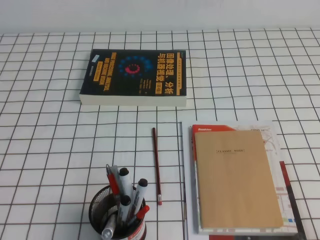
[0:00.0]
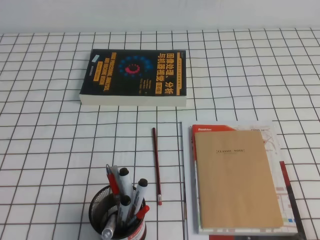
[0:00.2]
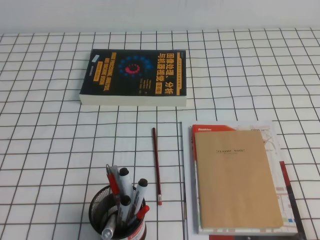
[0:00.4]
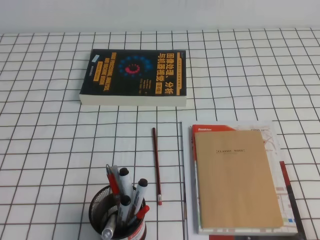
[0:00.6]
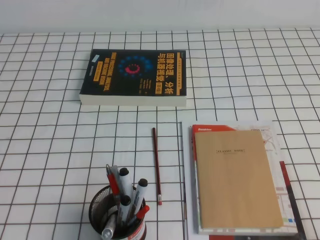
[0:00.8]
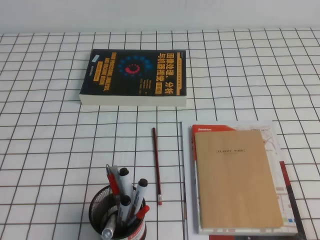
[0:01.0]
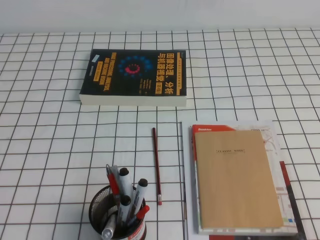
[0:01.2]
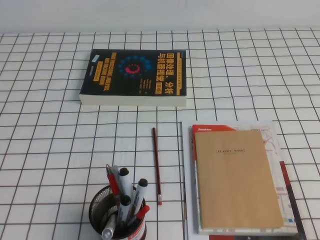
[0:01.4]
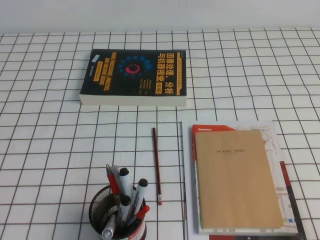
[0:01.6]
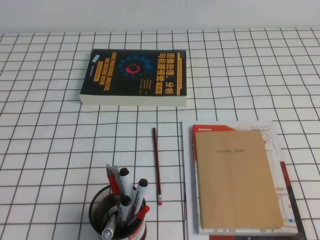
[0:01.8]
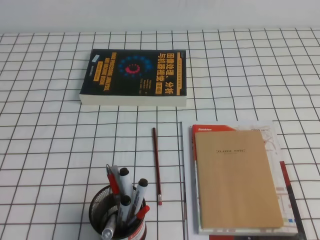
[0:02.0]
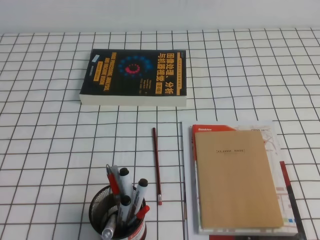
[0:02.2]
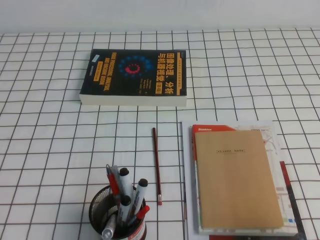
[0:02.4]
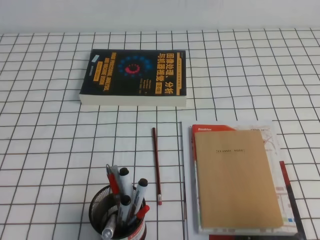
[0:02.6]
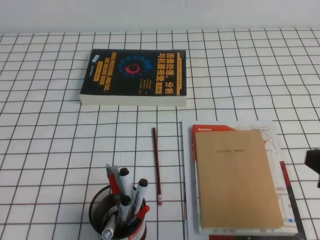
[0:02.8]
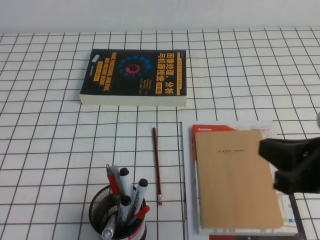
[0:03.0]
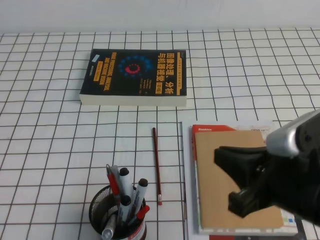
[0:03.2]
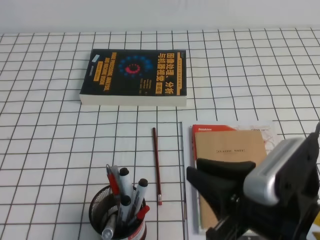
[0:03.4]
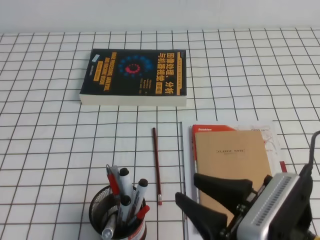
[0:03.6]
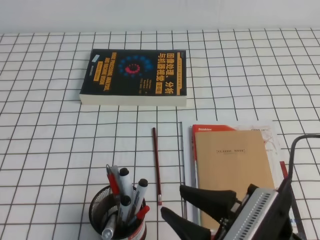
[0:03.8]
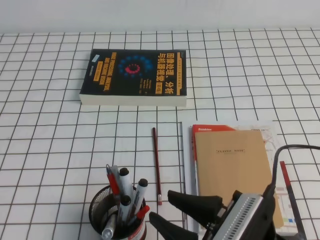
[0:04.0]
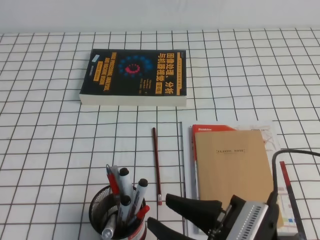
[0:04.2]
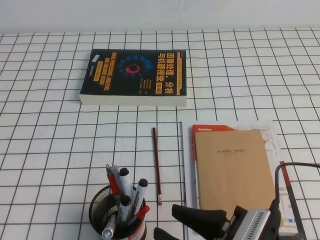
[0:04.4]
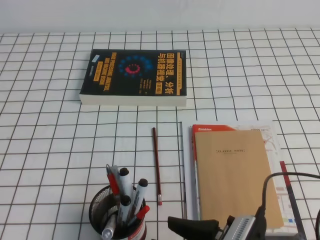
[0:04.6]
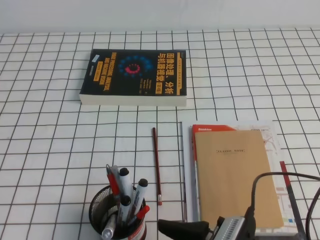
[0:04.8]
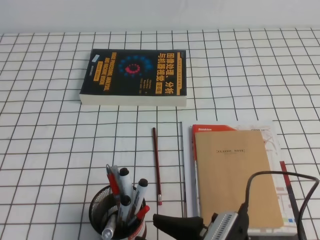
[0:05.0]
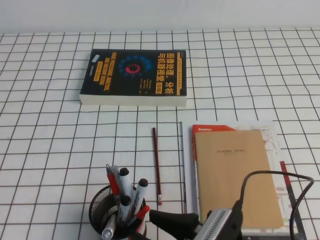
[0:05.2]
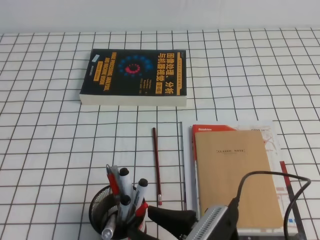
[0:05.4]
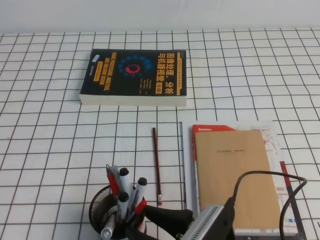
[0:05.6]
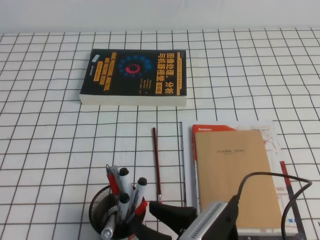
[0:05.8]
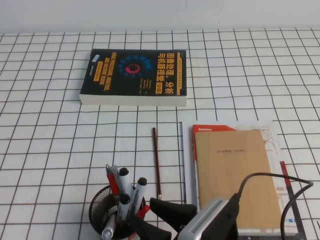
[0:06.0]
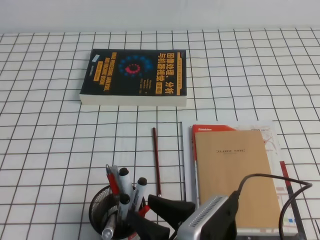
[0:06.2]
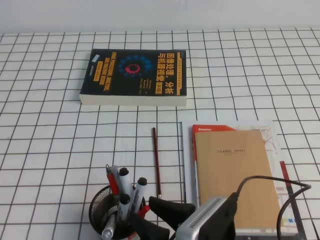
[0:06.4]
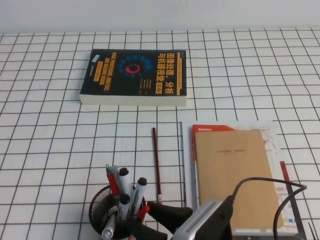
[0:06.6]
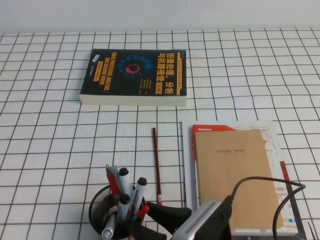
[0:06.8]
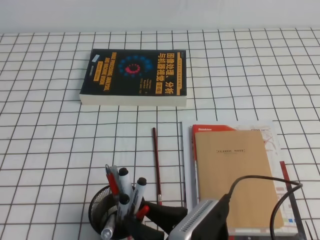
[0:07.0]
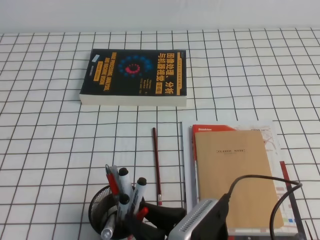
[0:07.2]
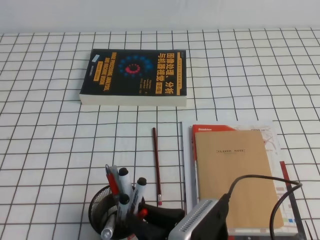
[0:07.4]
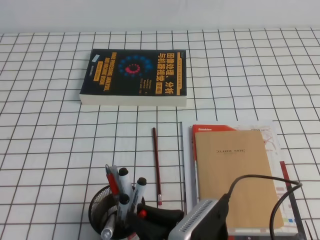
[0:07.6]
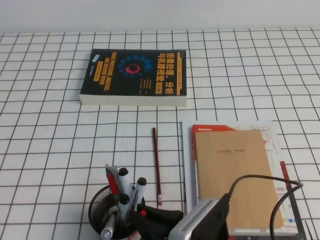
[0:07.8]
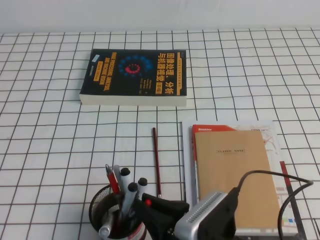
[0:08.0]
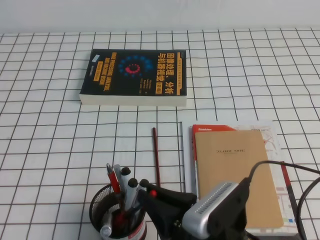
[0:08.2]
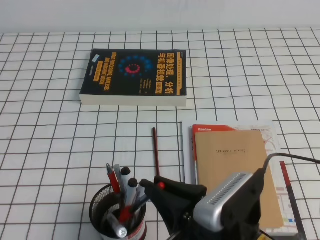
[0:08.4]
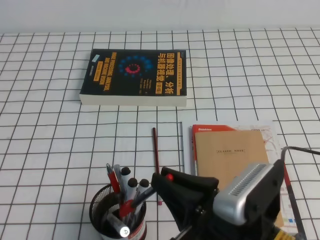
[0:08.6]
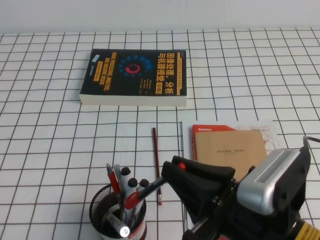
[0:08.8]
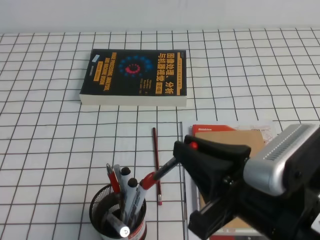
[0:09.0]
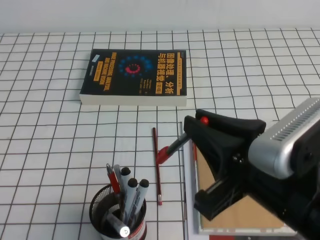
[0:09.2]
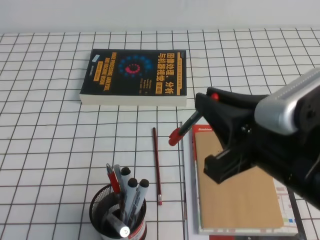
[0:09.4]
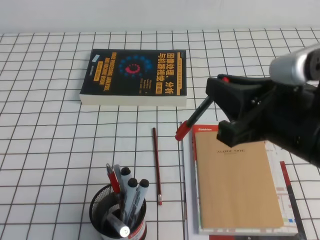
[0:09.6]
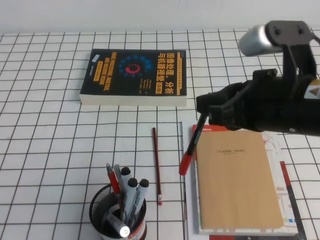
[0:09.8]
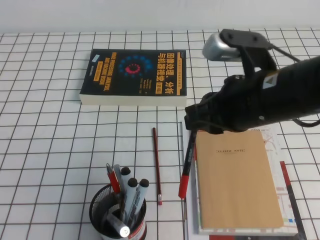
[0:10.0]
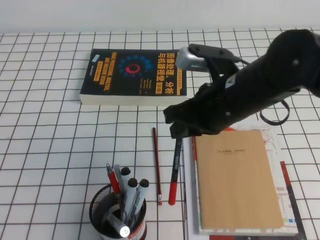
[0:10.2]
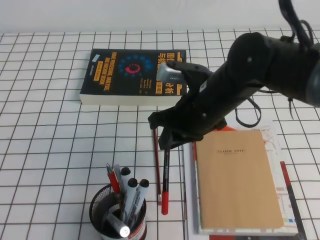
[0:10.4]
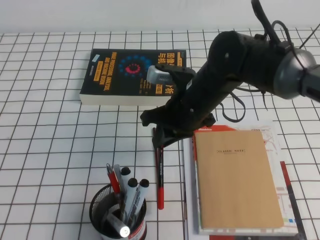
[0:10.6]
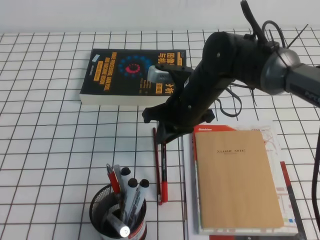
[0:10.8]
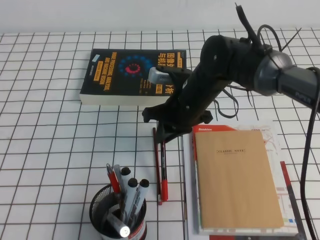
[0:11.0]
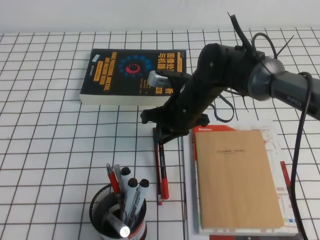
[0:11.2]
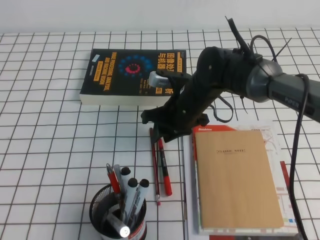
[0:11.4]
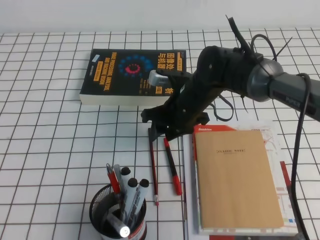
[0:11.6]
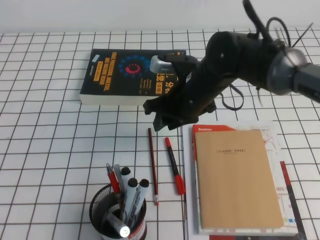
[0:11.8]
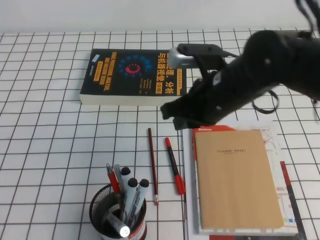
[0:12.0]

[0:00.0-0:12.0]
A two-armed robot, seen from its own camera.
0:01.6 to 0:03.0: The right gripper shifts roughly 15 cm forward, to the left and upward.
0:03.0 to 0:04.4: The right gripper shifts approximately 15 cm to the left, downward and backward, and opens up.
0:04.4 to 0:06.0: The grippers make only small movements.
0:06.0 to 0:07.6: The right gripper closes its fingers.
0:07.6 to 0:09.0: The right gripper goes approximately 15 cm upward and to the right.
0:09.0 to 0:10.4: The right gripper shifts approximately 20 cm forward.
0:10.4 to 0:12.0: The right gripper travels downward and back again, approximately 10 cm each way, and opens and closes again.

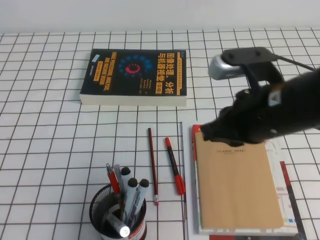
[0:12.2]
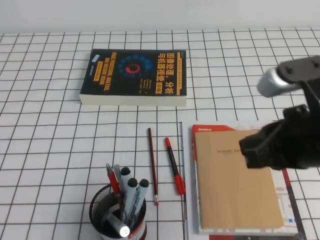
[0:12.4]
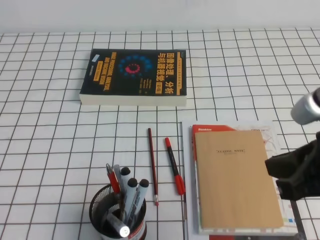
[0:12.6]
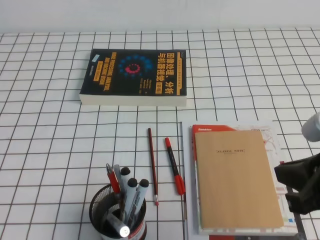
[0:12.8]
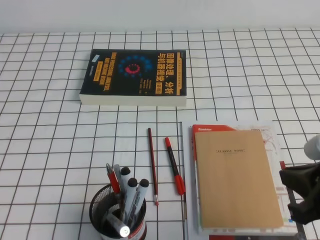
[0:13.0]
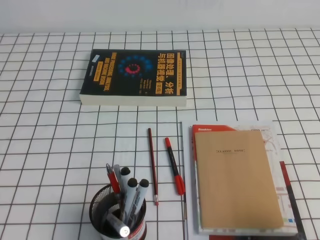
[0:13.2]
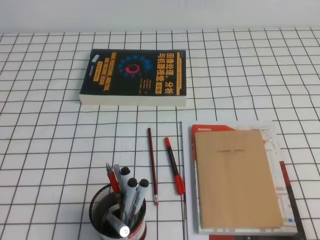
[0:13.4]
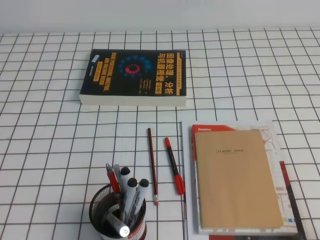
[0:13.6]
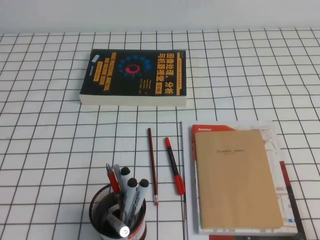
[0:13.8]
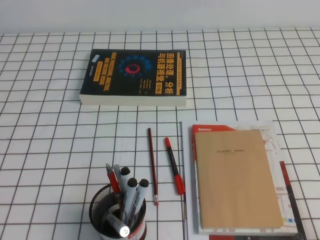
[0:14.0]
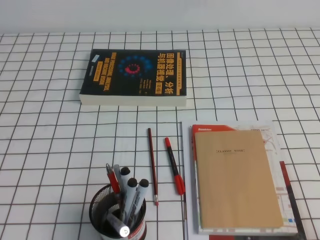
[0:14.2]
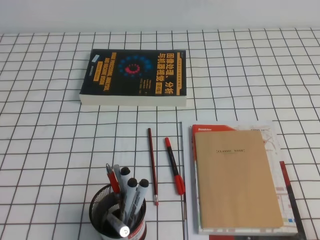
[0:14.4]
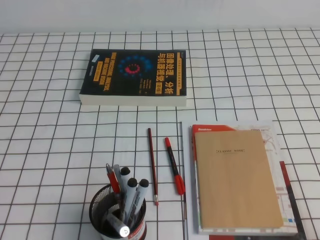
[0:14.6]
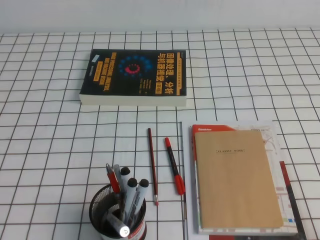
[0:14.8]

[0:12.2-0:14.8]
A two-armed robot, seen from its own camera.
Step, 0:12.2 to 0:14.8: Pick up the pen from the pen holder.
0:12.2 to 0:13.4: The right gripper moves to the right, backward and downward, some 25 cm.

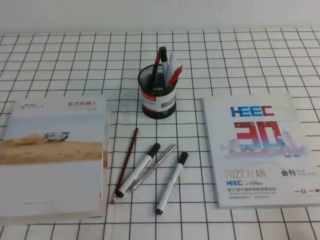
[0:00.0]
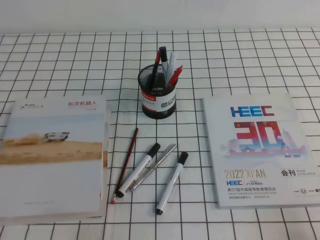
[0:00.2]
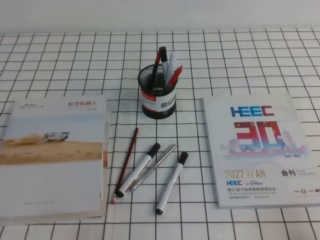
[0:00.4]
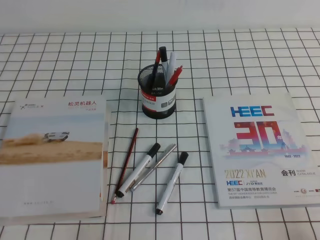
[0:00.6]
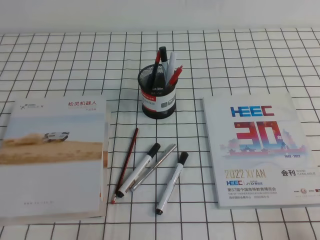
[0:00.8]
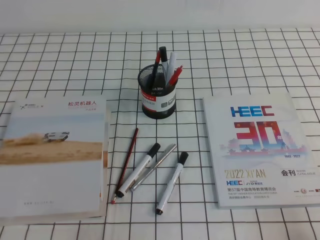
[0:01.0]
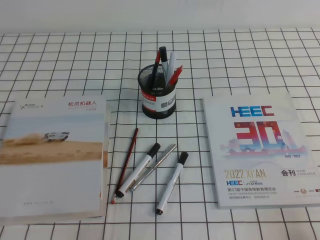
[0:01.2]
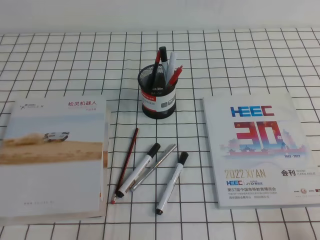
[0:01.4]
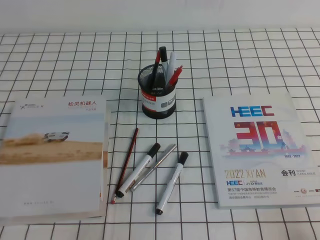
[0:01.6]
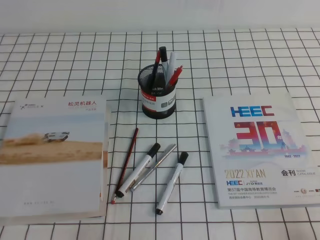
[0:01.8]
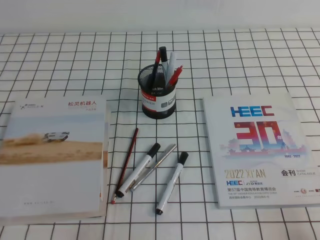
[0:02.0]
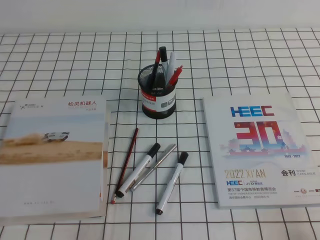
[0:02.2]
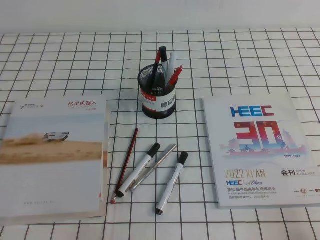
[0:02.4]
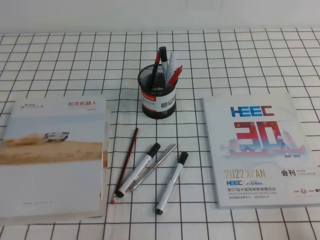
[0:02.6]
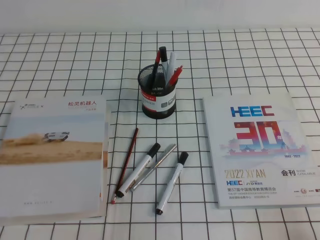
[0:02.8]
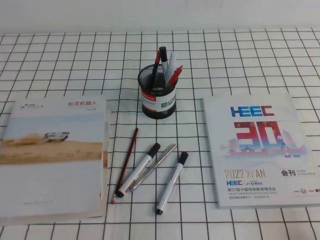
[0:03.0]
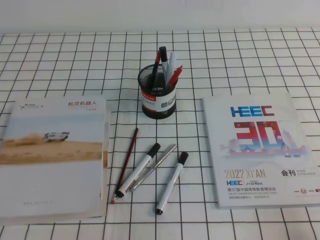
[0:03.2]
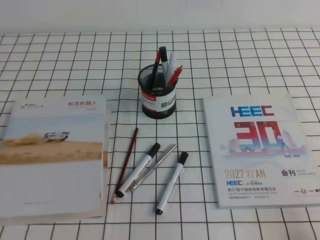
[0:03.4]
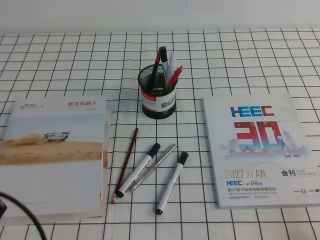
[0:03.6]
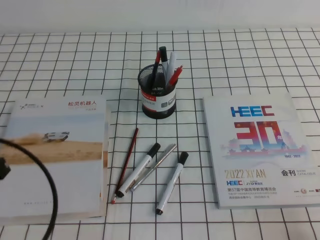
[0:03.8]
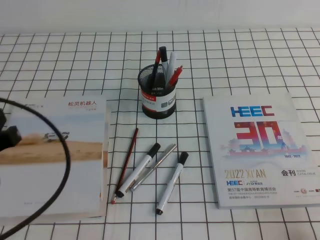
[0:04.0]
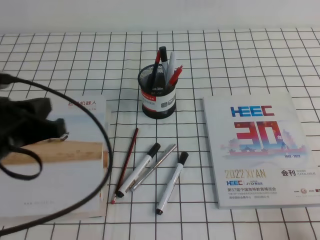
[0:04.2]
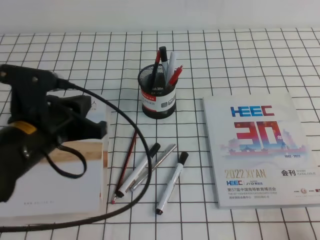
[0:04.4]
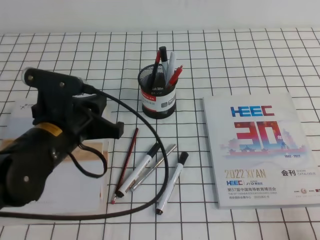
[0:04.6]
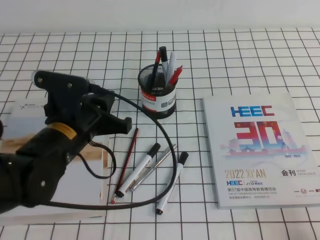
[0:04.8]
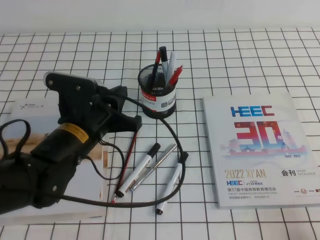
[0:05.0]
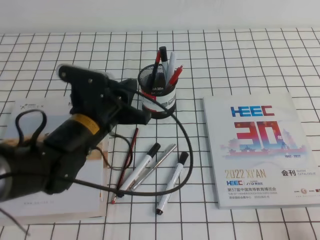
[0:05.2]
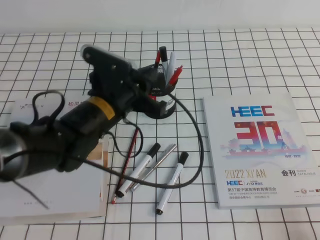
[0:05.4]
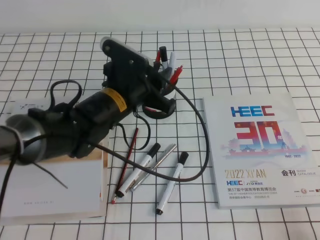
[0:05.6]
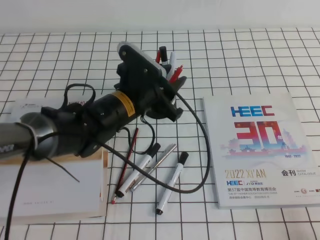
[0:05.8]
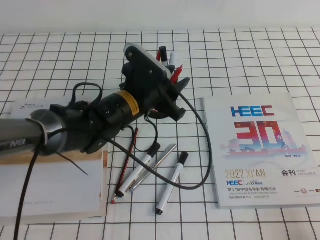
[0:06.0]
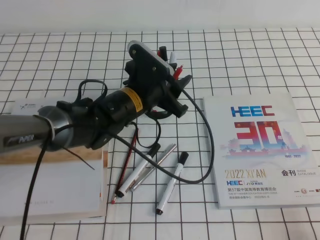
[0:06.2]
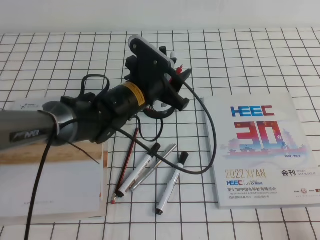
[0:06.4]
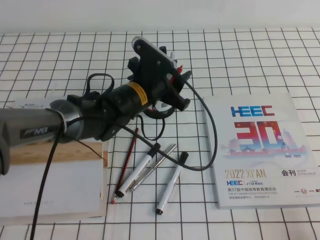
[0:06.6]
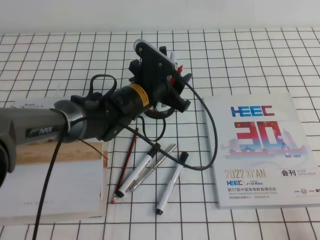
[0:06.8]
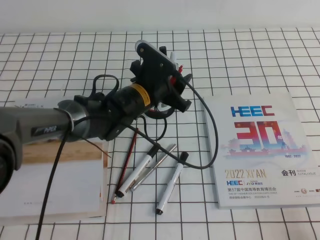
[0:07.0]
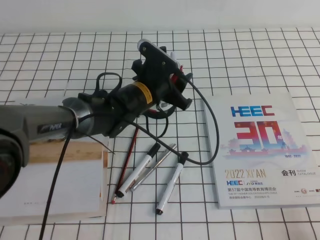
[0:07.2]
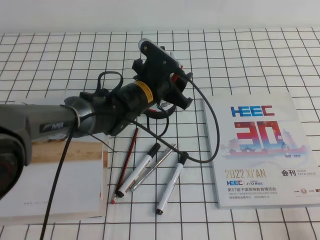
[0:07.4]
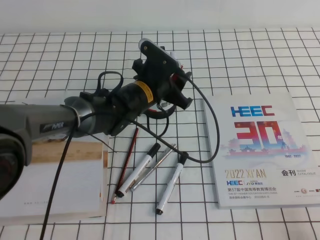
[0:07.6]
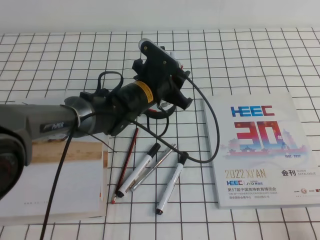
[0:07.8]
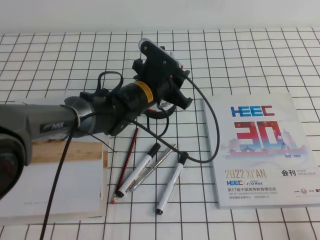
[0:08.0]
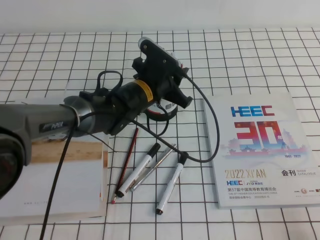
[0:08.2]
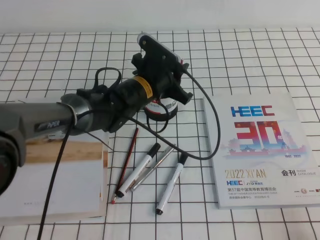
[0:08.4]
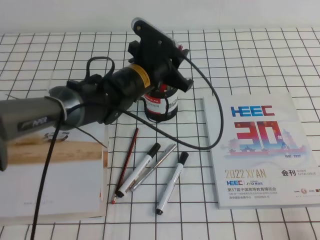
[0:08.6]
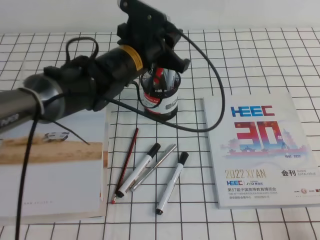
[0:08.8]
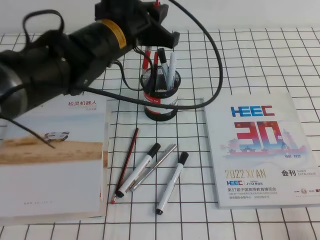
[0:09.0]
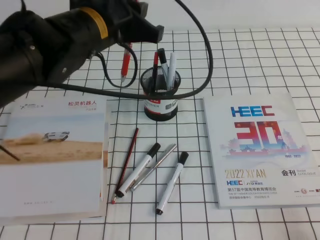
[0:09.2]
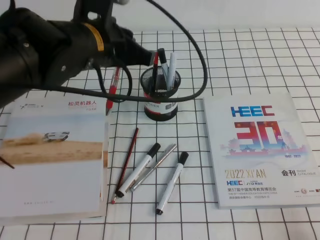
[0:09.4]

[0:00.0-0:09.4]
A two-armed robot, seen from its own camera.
0:00.0 to 0:01.6: Neither gripper changes place.
0:03.2 to 0:04.8: The left gripper is displaced forward and to the right by approximately 25 cm.
0:04.8 to 0:06.2: The left gripper goes about 15 cm to the right and forward, and opens up.
0:06.2 to 0:07.8: The left gripper changes place by about 5 cm.
0:07.8 to 0:09.4: The left gripper is displaced upward, backward and to the left by some 20 cm, and closes its fingers.
